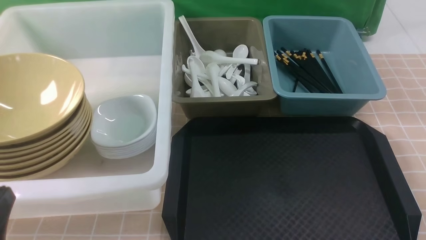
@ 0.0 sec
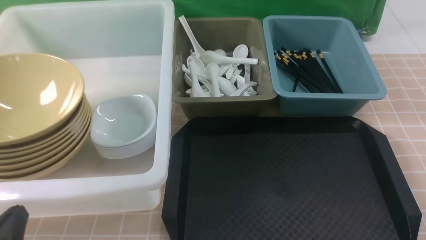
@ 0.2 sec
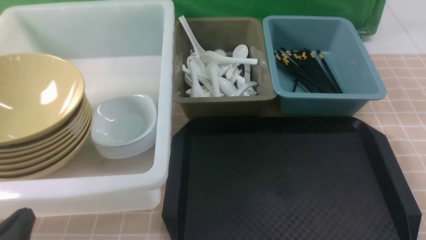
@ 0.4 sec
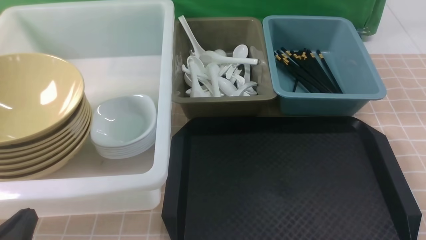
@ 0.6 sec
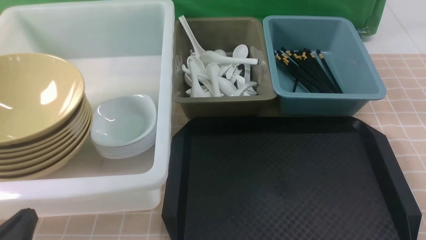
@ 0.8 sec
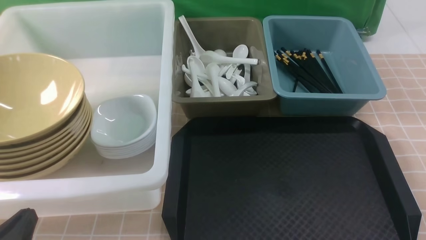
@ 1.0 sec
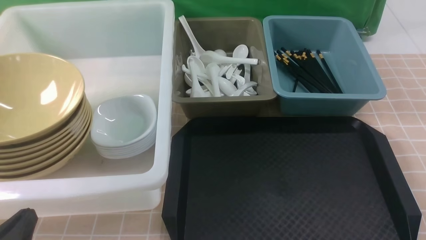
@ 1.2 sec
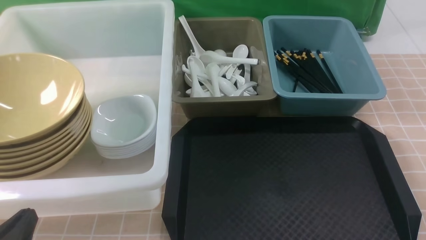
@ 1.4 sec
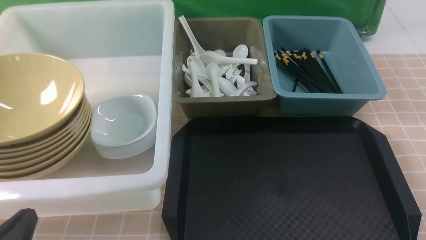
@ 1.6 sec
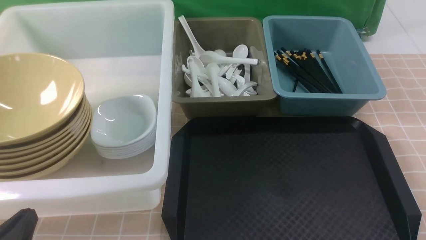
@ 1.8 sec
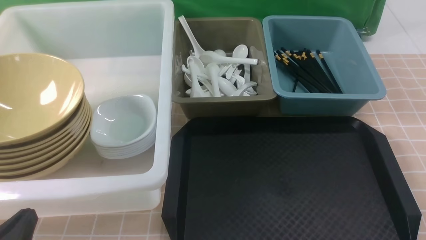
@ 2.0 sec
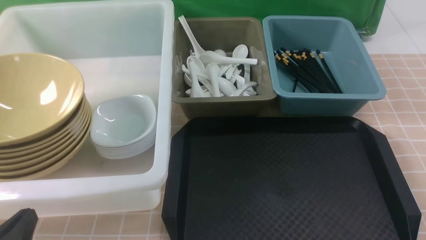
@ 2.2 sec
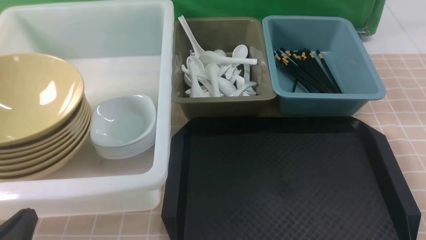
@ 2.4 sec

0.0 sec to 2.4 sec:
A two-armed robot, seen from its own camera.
Task of the whole recording: on brown table put chopsticks spoon bowls plates into blue grey white boxes.
0.0 sec to 1.2 sec: The grippers stay close to where they were, moving slightly.
1.2 sec to 2.4 sec: Both grippers stay about where they are.
